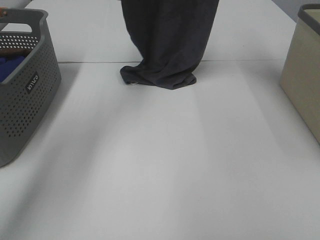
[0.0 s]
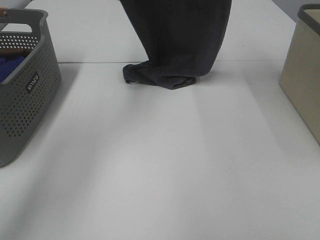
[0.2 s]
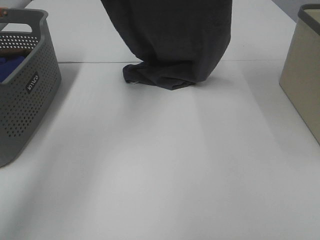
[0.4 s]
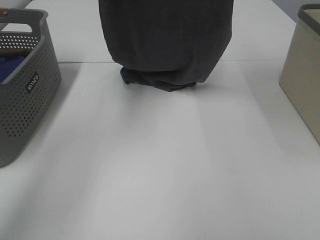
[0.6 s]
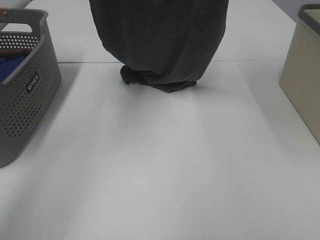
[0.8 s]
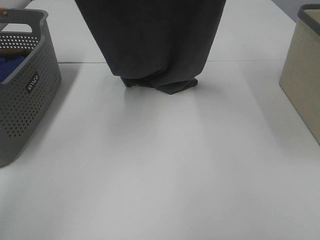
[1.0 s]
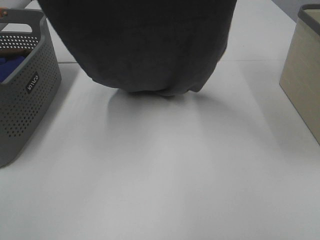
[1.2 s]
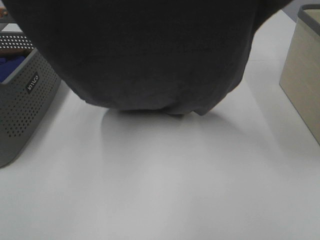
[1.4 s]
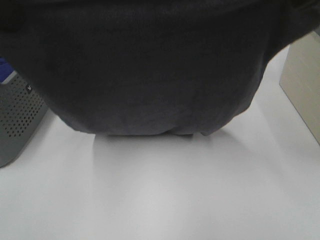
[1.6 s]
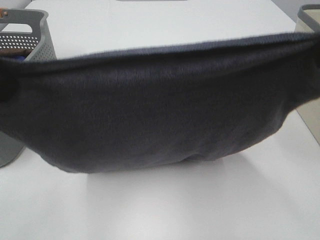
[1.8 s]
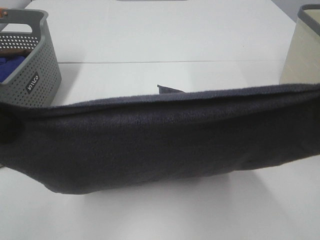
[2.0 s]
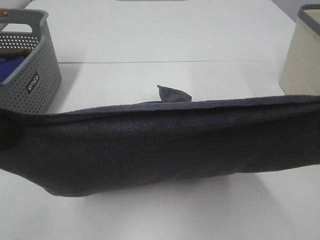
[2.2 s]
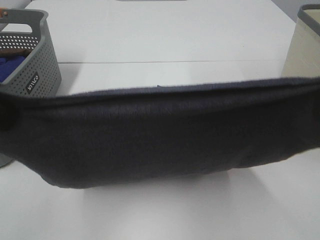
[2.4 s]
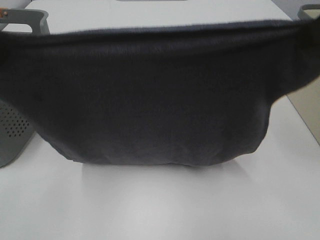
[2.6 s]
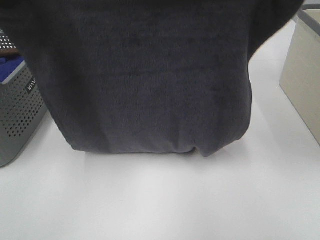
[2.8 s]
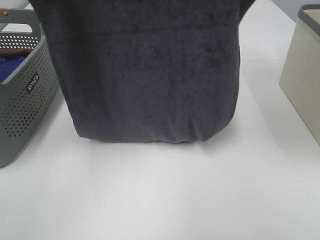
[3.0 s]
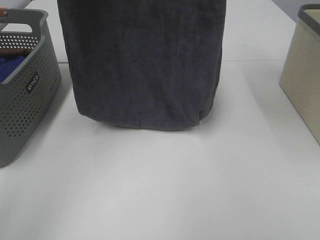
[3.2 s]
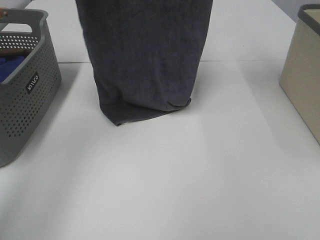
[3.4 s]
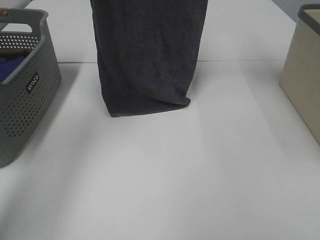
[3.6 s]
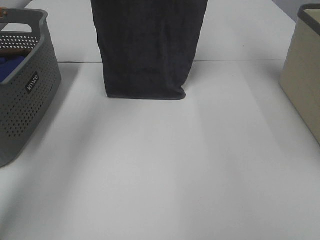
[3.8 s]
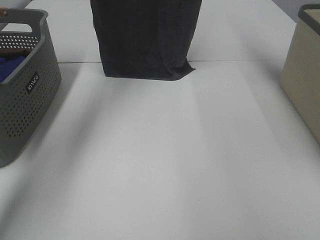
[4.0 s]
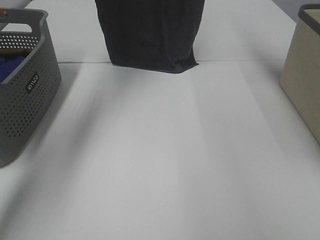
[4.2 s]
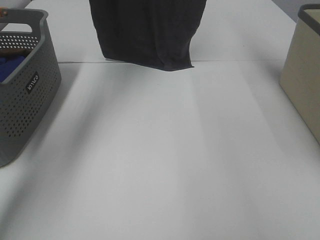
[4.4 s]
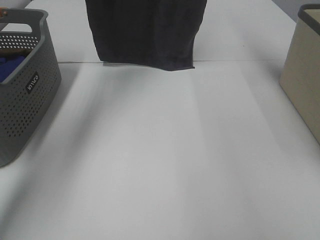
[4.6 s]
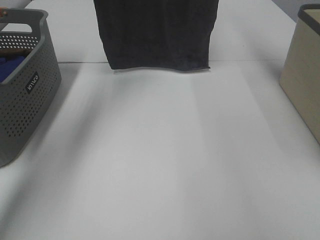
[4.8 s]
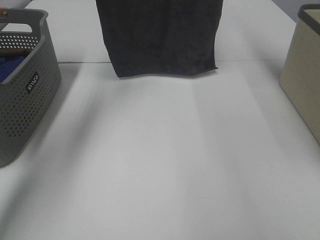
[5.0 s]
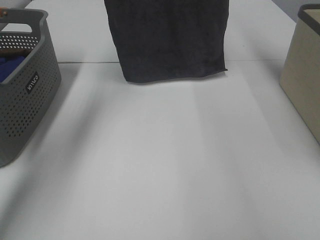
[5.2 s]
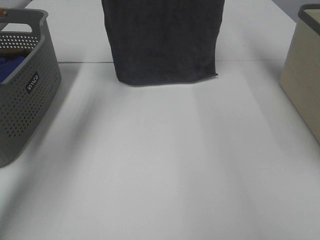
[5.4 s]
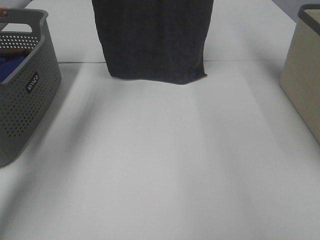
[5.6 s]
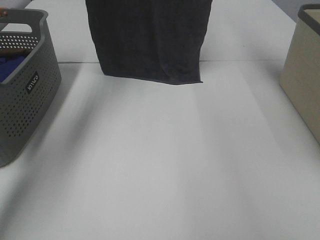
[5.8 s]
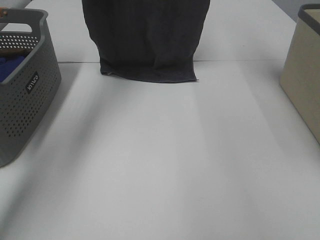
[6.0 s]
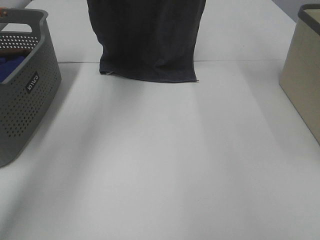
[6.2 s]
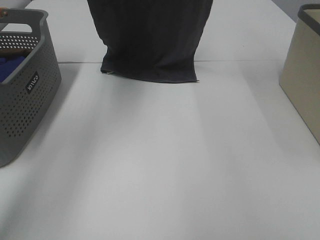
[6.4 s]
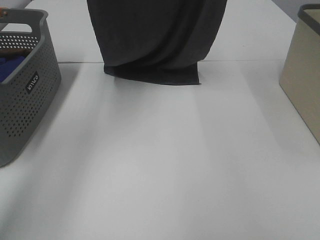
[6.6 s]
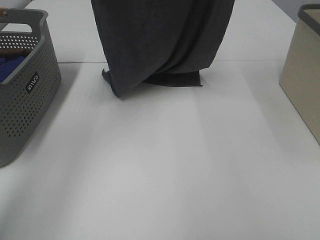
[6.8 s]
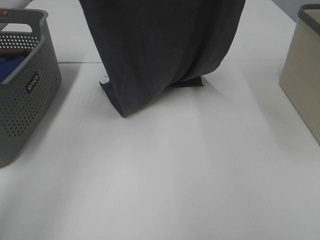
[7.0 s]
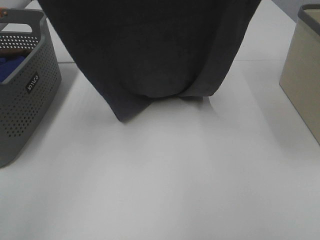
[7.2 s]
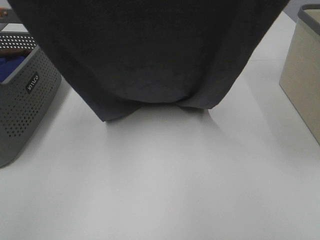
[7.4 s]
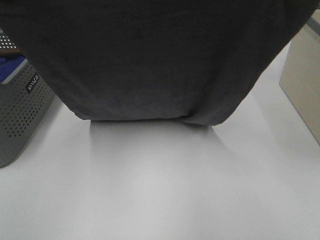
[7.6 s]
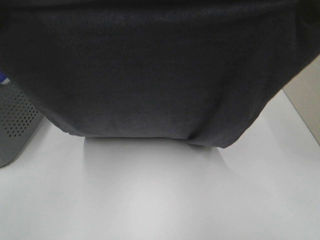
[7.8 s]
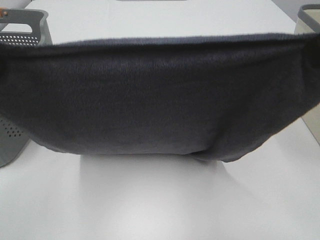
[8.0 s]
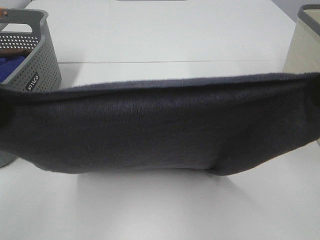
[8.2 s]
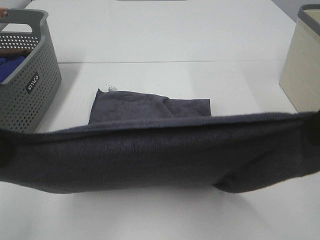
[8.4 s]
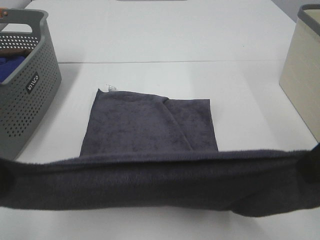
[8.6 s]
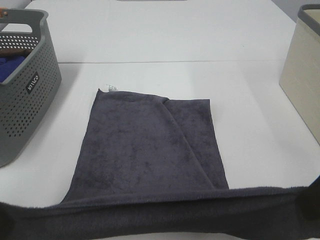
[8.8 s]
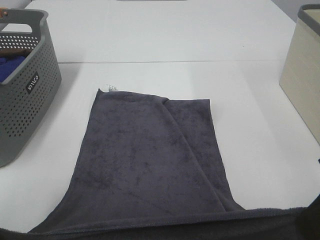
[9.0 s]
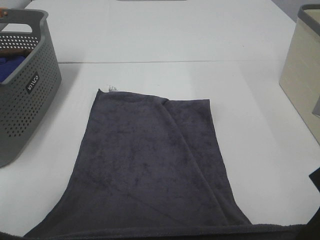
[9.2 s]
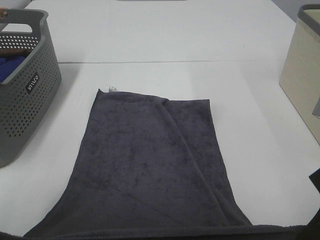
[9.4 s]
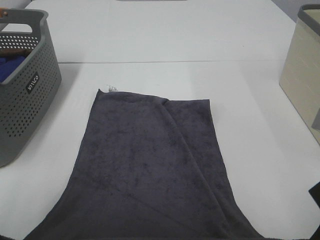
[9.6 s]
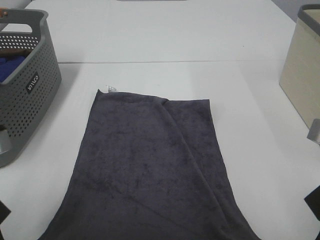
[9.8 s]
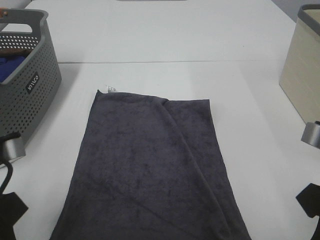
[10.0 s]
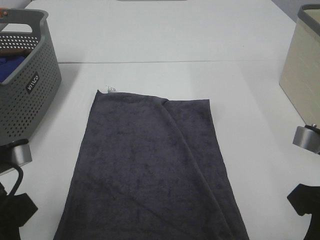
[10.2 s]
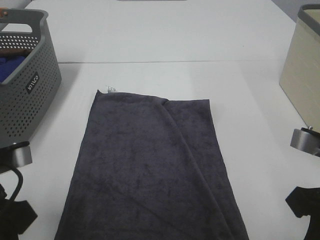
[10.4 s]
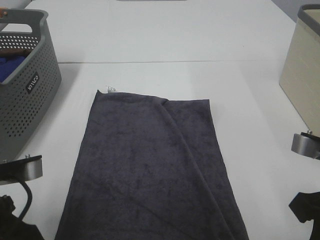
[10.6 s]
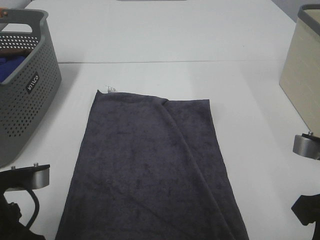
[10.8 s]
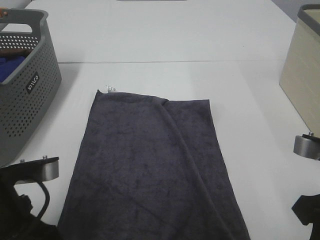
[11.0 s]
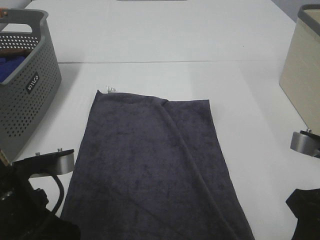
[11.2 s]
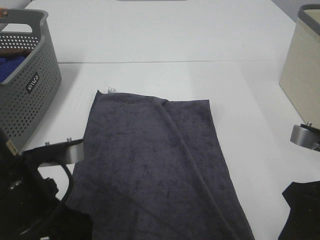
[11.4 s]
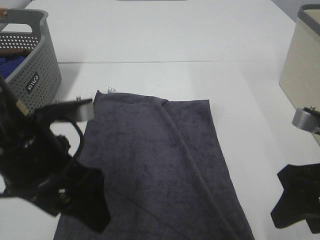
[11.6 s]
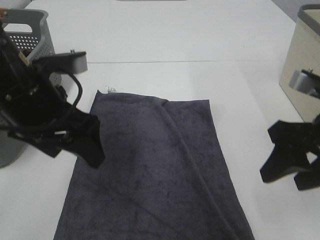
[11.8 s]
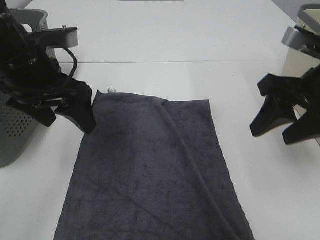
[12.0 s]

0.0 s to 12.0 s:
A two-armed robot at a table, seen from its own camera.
Task of the whole recording: Remove the towel and place it.
Step, 0.0 to 5.4 s: Left hand: spread the grey towel flat on the table.
Step, 0.0 to 5.4 s: Right hand: spread the grey towel flat on the table.
Step, 5.6 to 11.6 s: Left hand:adjust the gray towel.
Step, 5.6 to 11.6 s: Right hand:adjust the gray towel.
0.0 to 1.6 s: Both grippers move backward, roughly 30 cm.
1.6 to 3.0 s: Both grippers travel together forward, roughly 10 cm.
3.0 to 4.4 s: Both grippers travel together forward, about 20 cm.
4.4 to 6.0 s: The grippers make only small movements.
6.0 to 7.6 s: The two grippers go roughly 30 cm backward.
7.6 to 9.0 s: Both grippers travel together downward and backward, about 20 cm.
9.0 to 10.4 s: Both grippers move downward, some 5 cm.
10.4 to 12.0 s: The right gripper travels forward and upward by roughly 10 cm, and opens up; the left gripper goes some 15 cm forward, and opens up.

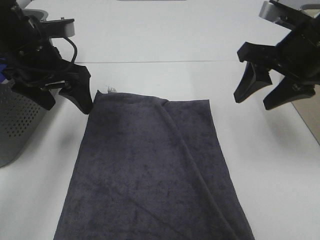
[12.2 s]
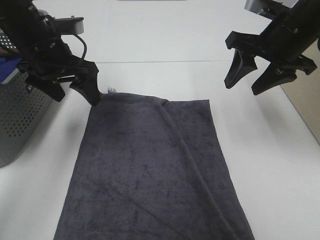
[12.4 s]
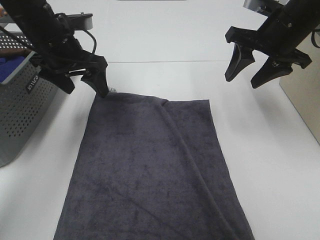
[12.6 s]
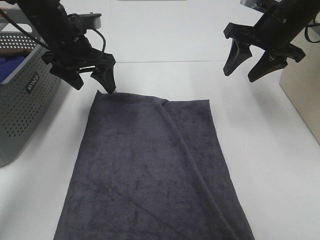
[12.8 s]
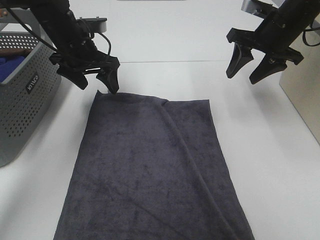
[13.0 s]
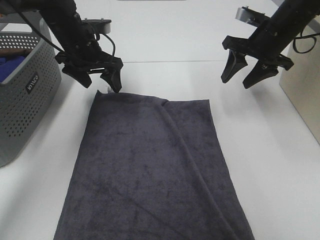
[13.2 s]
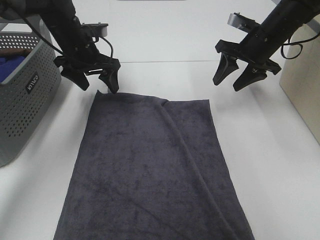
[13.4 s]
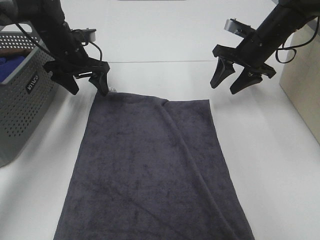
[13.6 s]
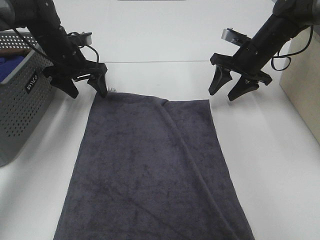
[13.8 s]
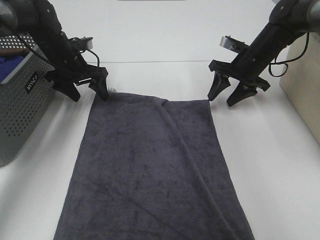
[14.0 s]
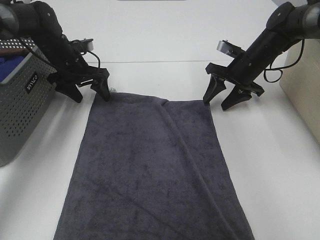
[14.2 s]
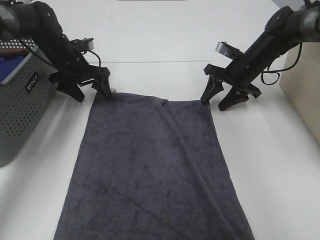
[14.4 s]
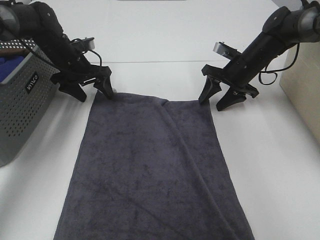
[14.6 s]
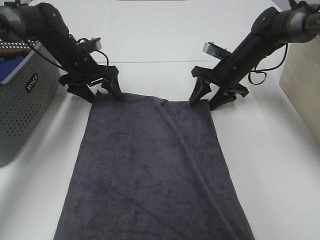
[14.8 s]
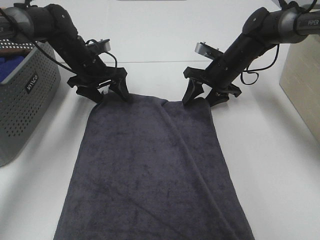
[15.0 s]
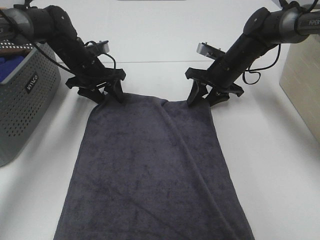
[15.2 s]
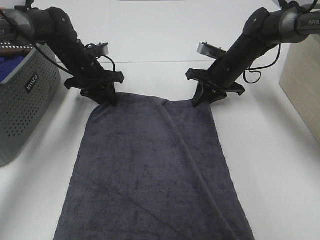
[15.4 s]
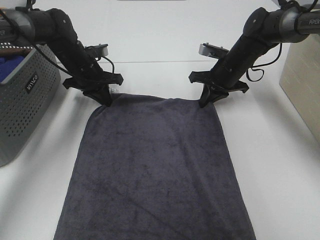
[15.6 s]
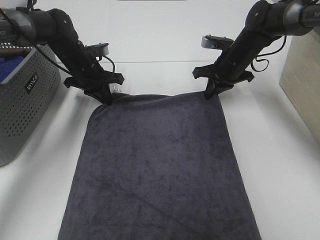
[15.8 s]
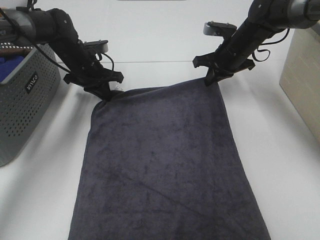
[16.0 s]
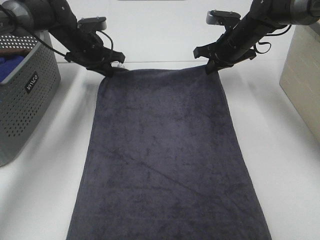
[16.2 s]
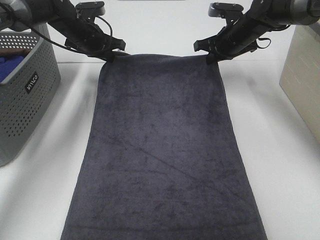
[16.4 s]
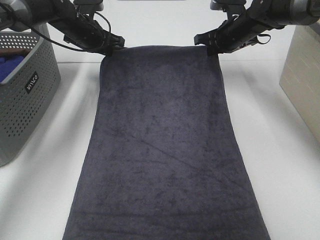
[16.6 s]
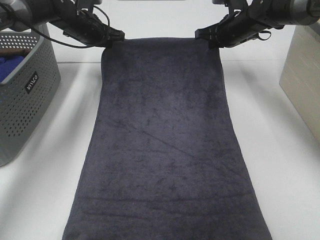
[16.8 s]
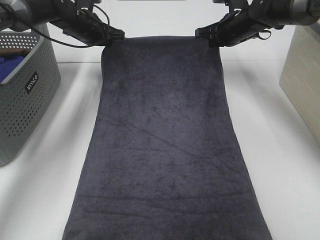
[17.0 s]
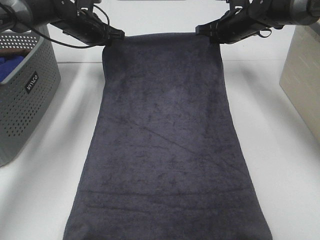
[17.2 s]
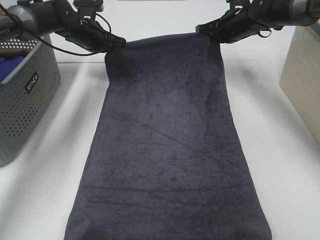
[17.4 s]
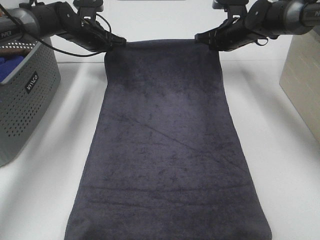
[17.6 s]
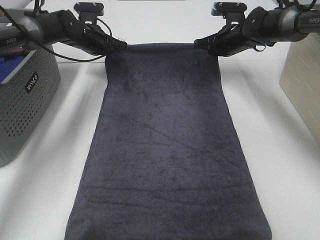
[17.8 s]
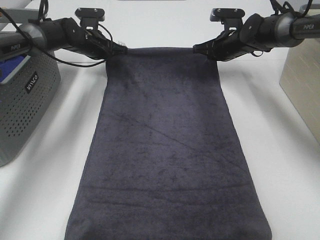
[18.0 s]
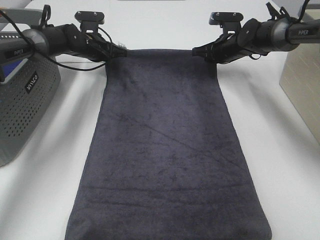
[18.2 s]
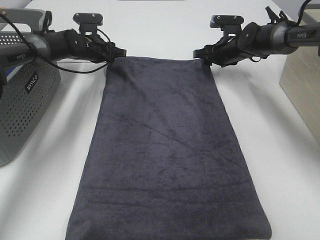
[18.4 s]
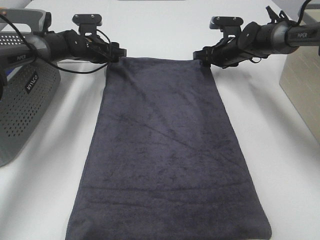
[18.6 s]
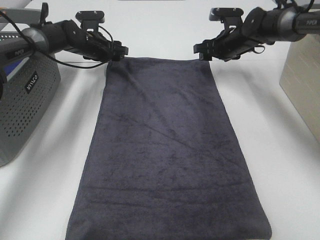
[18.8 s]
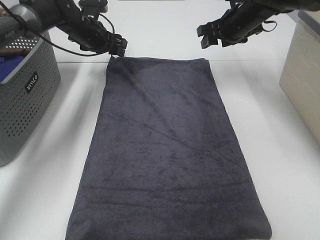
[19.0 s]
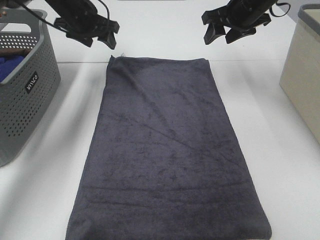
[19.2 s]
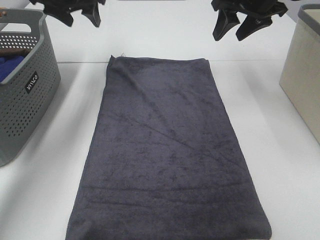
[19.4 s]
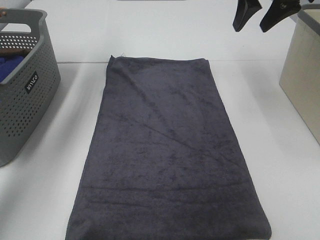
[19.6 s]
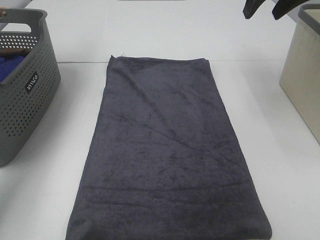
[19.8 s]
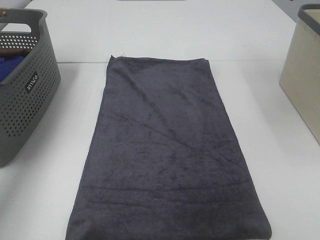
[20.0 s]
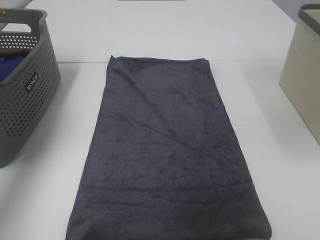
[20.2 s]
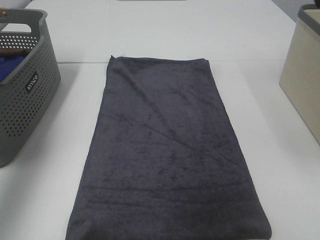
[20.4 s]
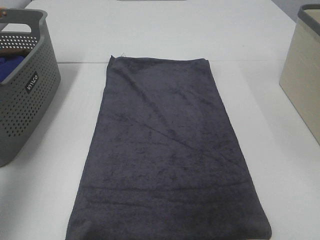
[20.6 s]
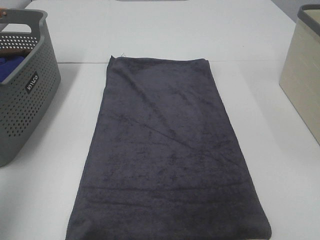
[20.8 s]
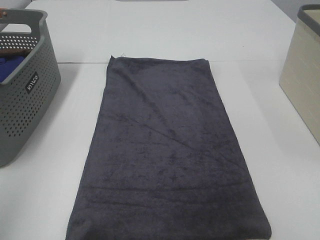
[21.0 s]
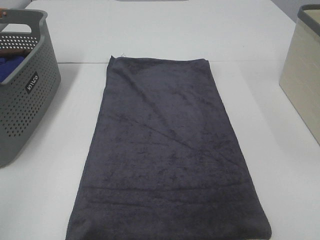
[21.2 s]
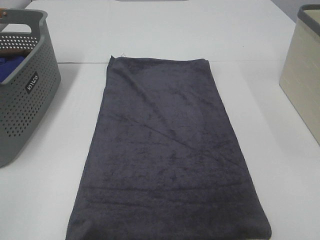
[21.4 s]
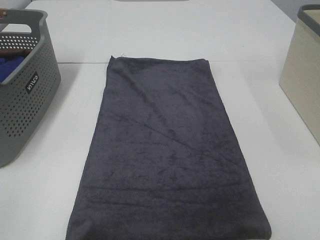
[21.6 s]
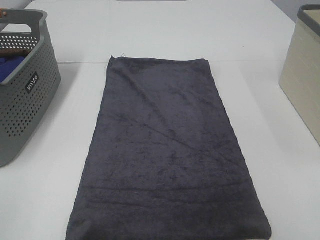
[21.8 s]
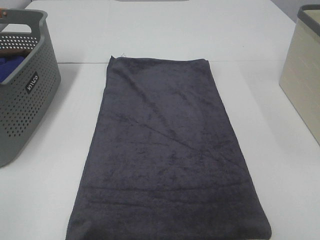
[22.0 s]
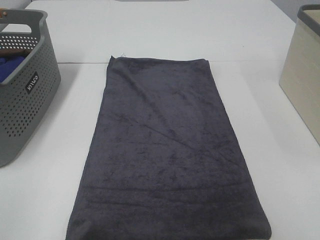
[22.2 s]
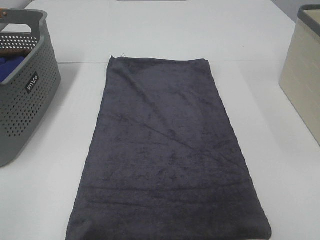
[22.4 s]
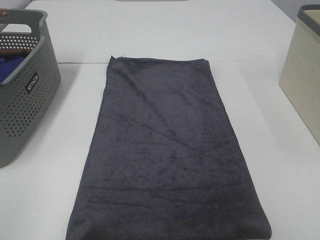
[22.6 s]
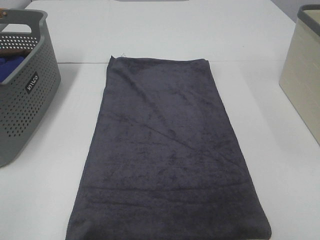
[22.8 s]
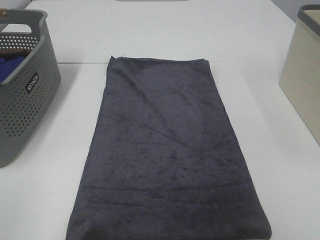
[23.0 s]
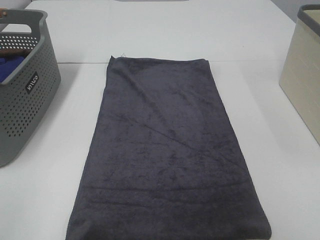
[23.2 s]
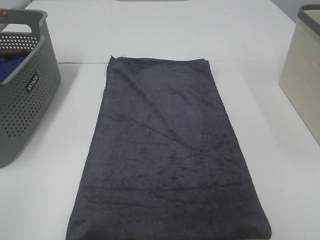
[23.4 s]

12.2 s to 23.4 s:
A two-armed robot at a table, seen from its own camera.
Task of the whole recording: Remove the towel and place it.
12.2 to 13.8 s: The grippers both shift forward and downward by approximately 20 cm.
13.8 to 15.4 s: The left gripper closes. Meanwhile the right gripper shifts by some 5 cm, and closes.
15.4 to 17.0 s: The two grippers go some 10 cm upward and forward.
17.0 to 18.6 s: Both grippers move downward, roughly 5 cm. The left gripper opens its fingers, while the right gripper opens its fingers.
18.6 to 20.2 s: The right gripper travels upward and backward by about 40 cm, while the left gripper heads upward, backward and to the left, covering approximately 40 cm.
20.2 to 21.8 s: Both grippers travel together backward, approximately 35 cm.
